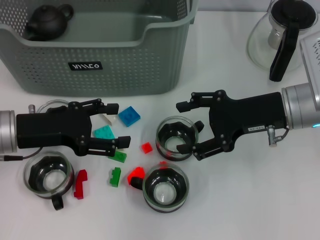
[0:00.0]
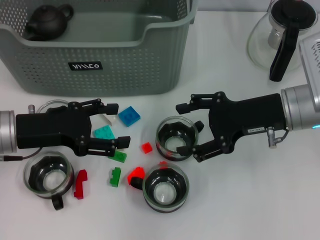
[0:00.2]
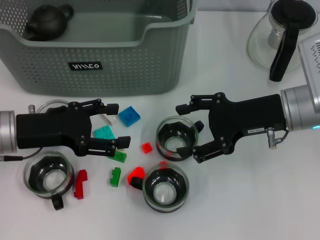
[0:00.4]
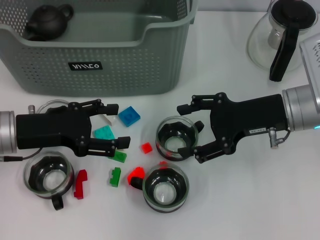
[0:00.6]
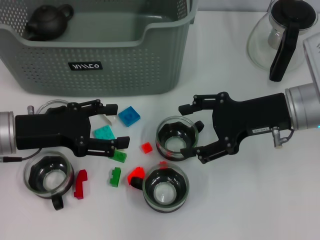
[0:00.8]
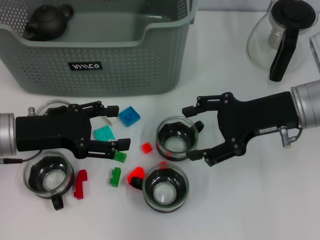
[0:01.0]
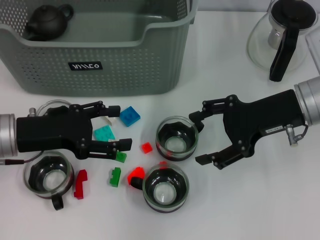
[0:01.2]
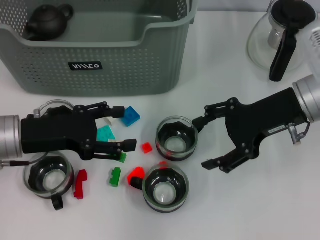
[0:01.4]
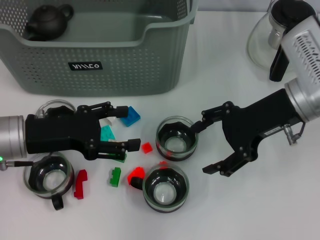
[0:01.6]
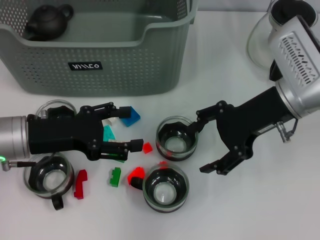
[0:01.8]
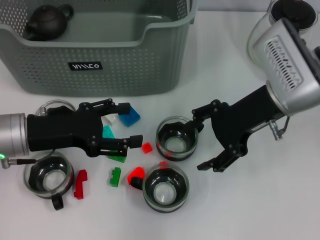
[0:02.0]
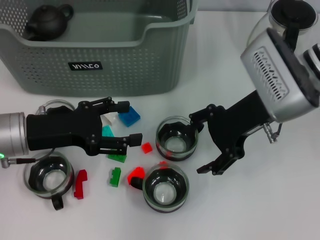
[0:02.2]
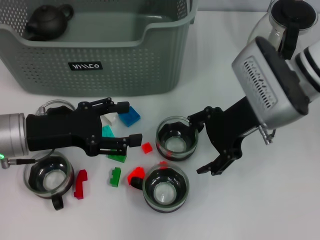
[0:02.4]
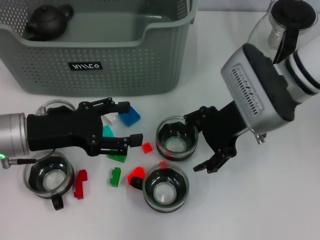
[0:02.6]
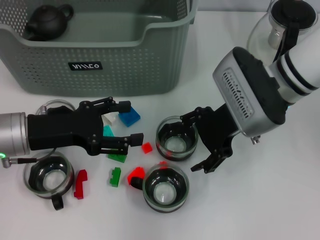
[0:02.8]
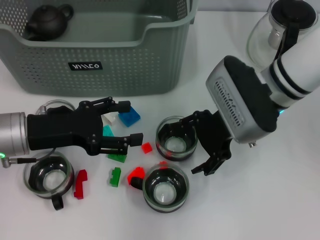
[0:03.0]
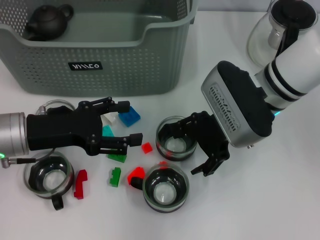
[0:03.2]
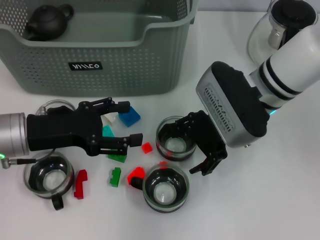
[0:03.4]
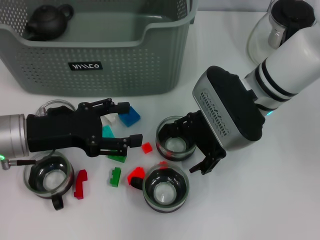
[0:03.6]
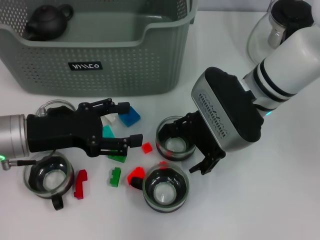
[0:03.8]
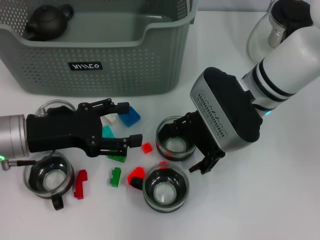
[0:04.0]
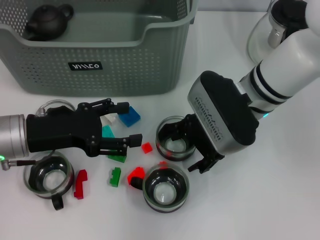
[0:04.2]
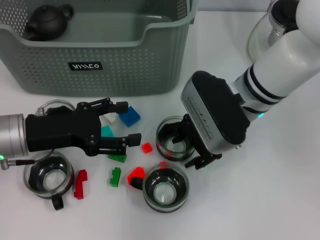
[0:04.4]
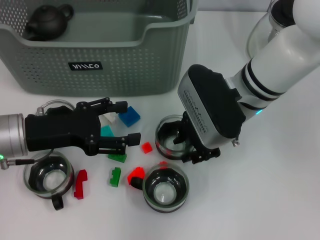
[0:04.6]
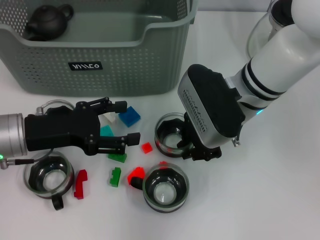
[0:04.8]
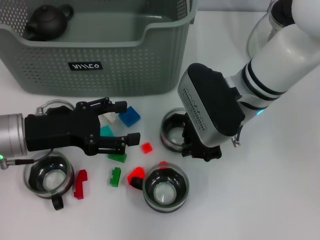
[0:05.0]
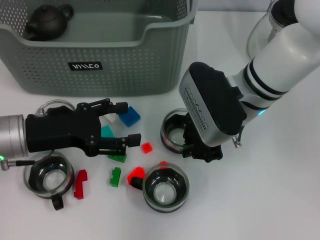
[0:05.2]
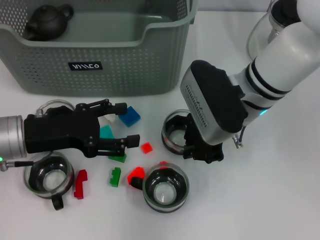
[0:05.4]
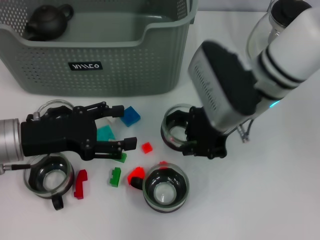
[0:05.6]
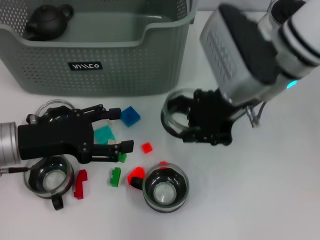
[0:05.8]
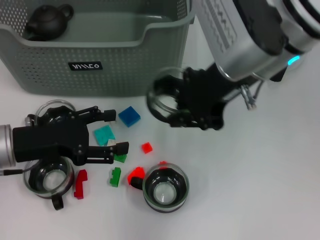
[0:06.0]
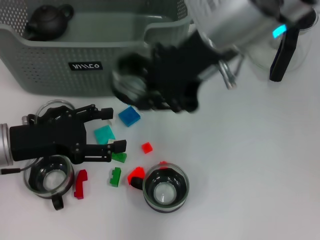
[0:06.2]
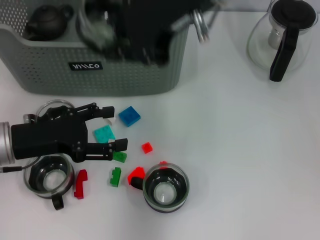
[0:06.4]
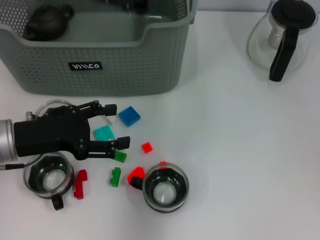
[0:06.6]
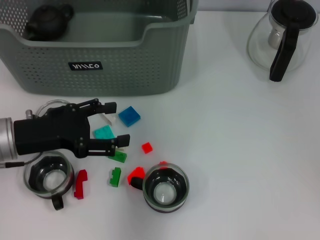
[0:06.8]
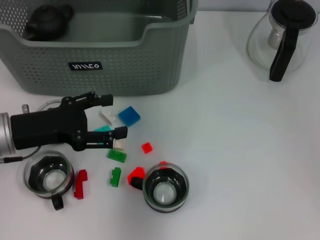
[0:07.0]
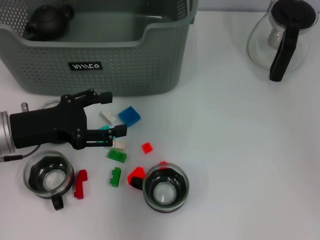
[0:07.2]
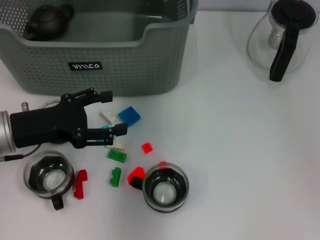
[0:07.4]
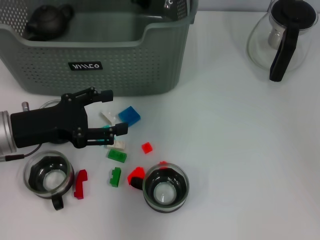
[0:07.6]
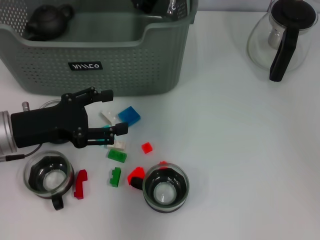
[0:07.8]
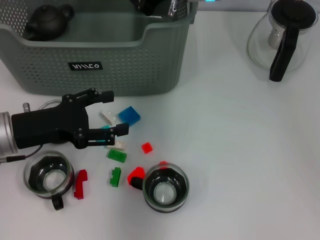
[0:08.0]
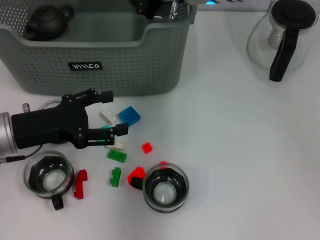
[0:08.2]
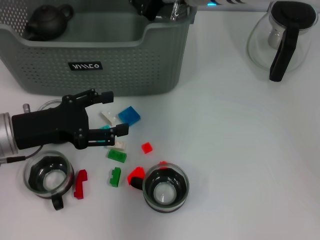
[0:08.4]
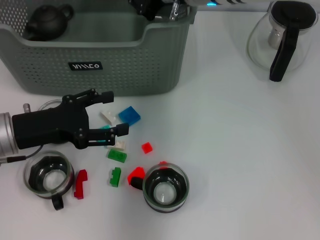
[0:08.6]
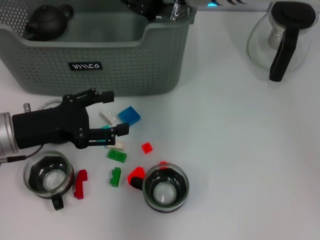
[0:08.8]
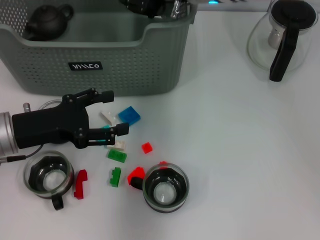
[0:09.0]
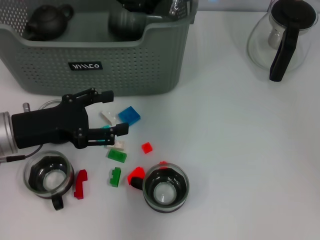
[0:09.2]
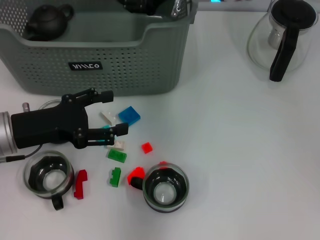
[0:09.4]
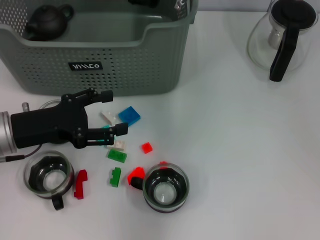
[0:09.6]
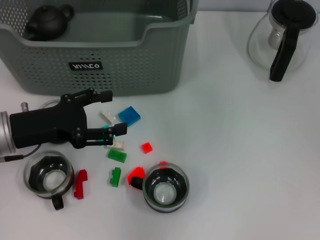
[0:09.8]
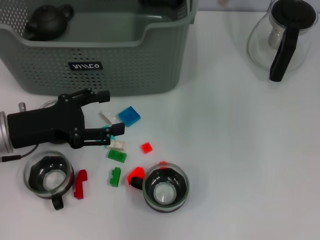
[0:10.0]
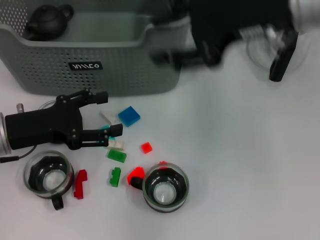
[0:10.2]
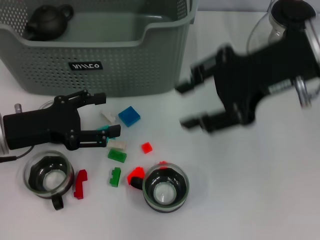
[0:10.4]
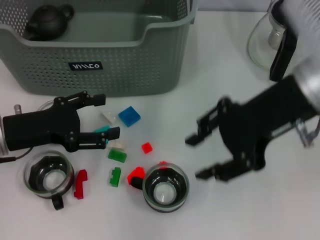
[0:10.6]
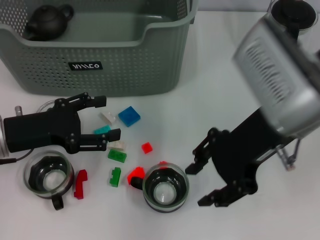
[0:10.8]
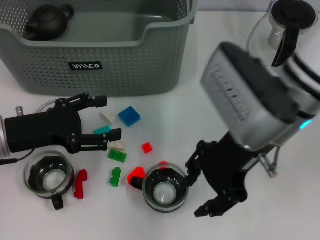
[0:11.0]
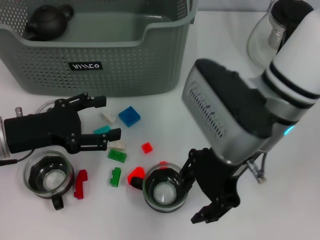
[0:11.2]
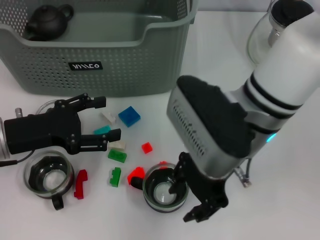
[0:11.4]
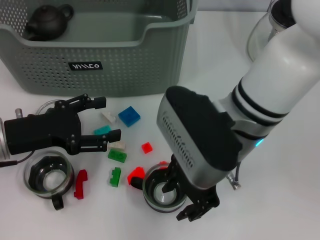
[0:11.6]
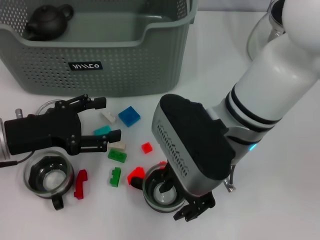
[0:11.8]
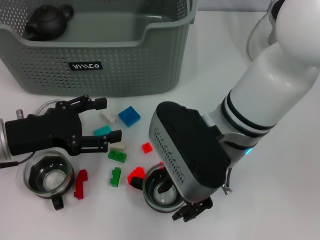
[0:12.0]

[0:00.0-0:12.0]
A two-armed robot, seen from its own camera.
Task of the whole recording: pick up the teacup on the table and place it into the storage bin, pick up the block on the table and place it into the storage bin.
Step, 0:00.0 to 0:05.0: Grasp the cup with right gripper.
Step, 0:05.4 to 0:09.8: Place the cup in the storage box with right gripper.
0:01.6 to 0:03.0: The right gripper is displaced to the left by roughly 5 cm.
0:03.0 to 0:04.4: The grippers make only small movements.
0:04.4 to 0:06.0: The right gripper heads upward, covering about 10 cm, and closes.
0:06.0 to 0:07.6: The right gripper is displaced forward and to the left by some 15 cm.
0:07.6 to 0:09.0: There are only small adjustments of the grippers.
0:09.0 to 0:10.4: The right gripper heads backward and to the right, covering roughly 20 cm, and opens its fingers.
0:10.4 to 0:12.0: The right gripper shifts roughly 15 cm to the left and downward.

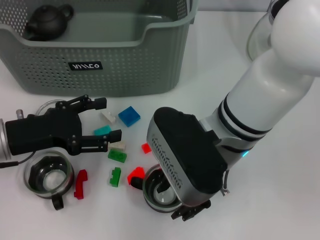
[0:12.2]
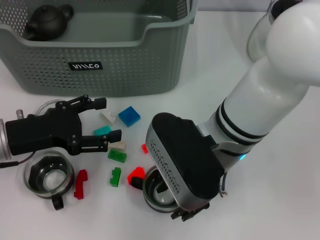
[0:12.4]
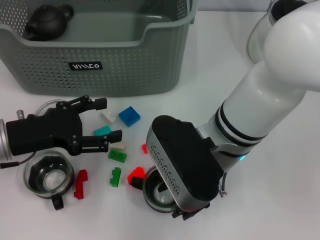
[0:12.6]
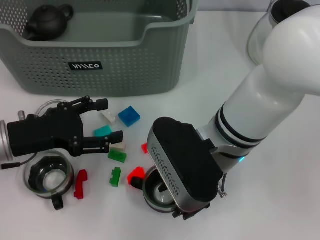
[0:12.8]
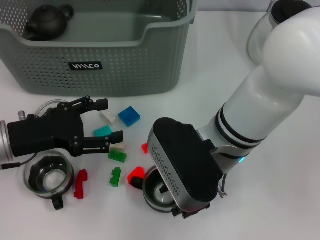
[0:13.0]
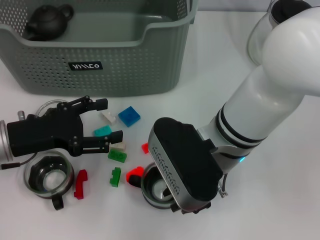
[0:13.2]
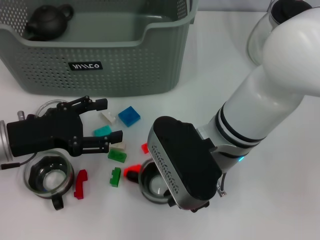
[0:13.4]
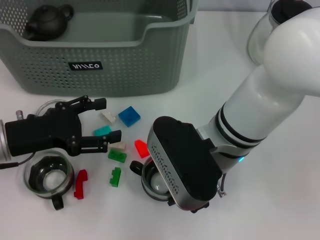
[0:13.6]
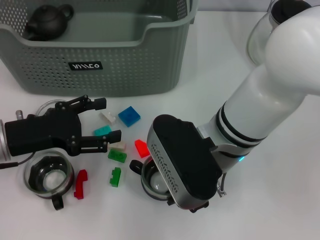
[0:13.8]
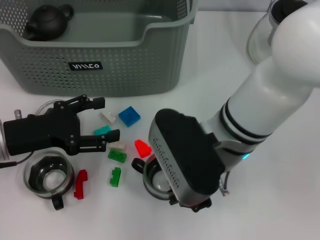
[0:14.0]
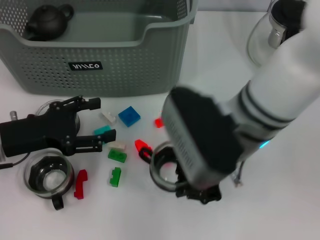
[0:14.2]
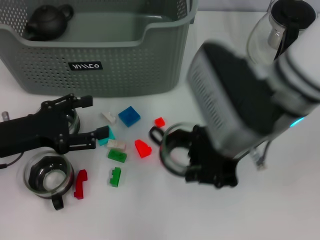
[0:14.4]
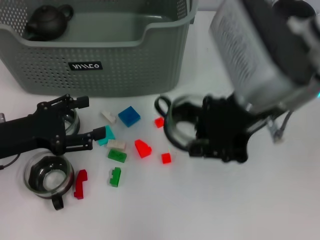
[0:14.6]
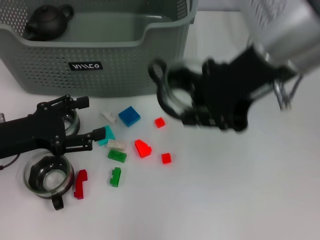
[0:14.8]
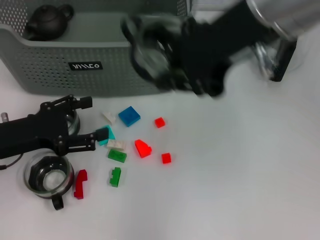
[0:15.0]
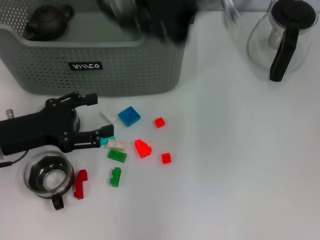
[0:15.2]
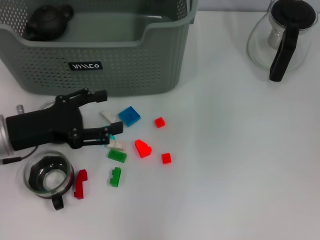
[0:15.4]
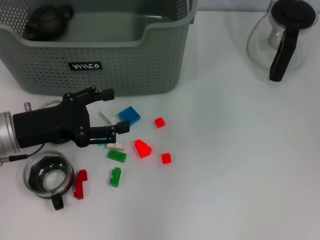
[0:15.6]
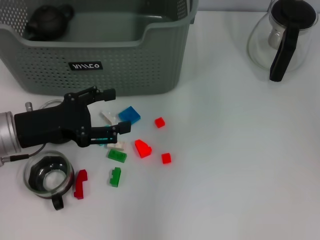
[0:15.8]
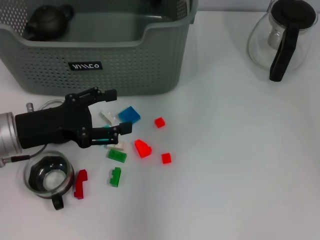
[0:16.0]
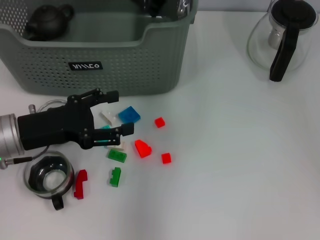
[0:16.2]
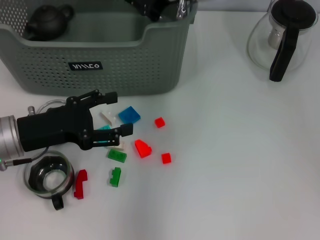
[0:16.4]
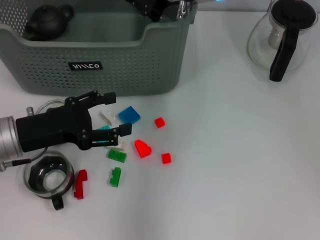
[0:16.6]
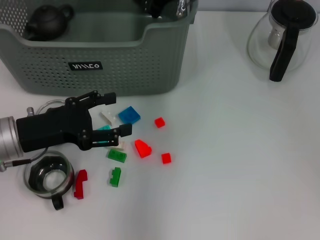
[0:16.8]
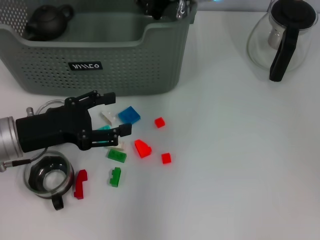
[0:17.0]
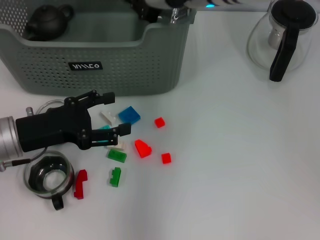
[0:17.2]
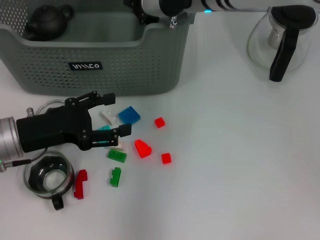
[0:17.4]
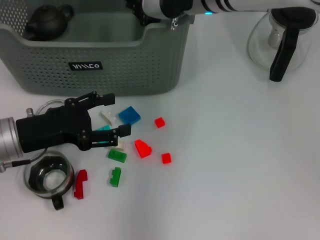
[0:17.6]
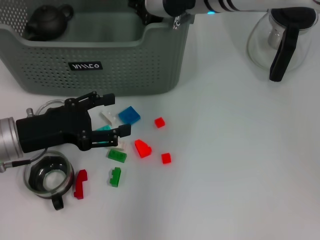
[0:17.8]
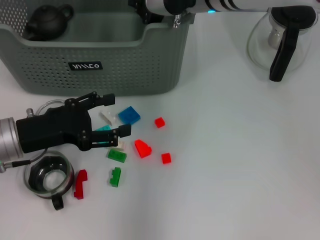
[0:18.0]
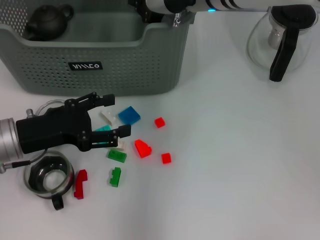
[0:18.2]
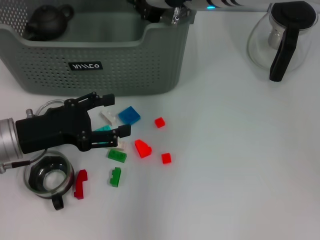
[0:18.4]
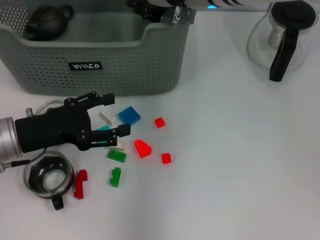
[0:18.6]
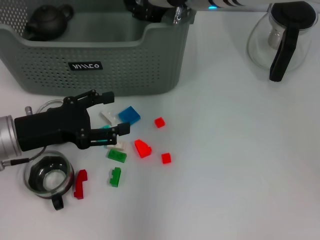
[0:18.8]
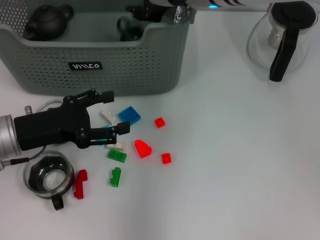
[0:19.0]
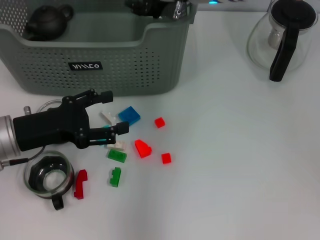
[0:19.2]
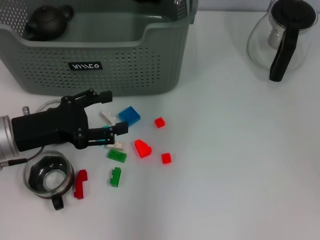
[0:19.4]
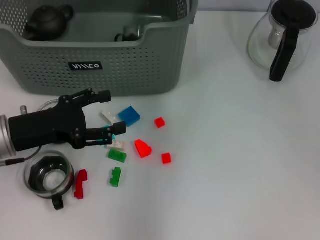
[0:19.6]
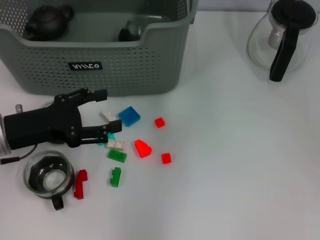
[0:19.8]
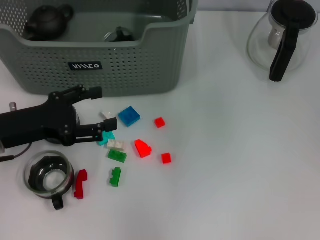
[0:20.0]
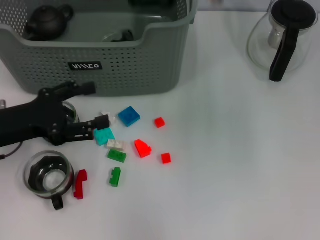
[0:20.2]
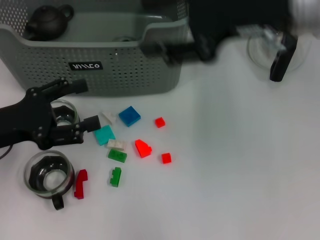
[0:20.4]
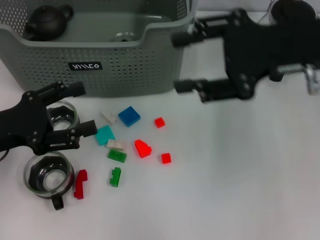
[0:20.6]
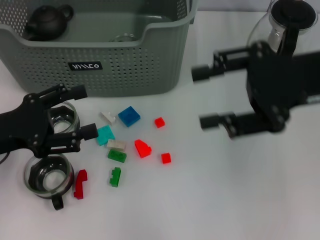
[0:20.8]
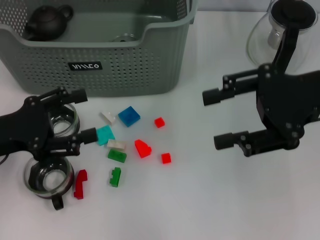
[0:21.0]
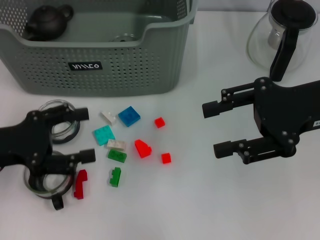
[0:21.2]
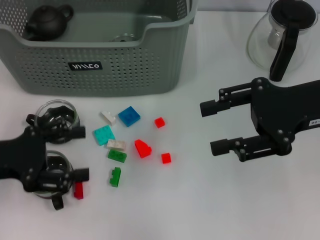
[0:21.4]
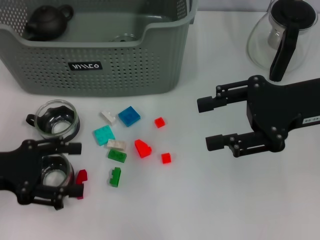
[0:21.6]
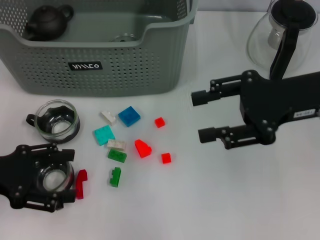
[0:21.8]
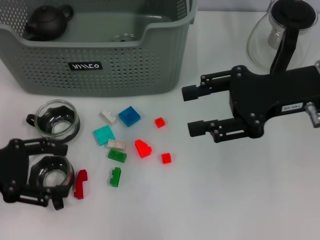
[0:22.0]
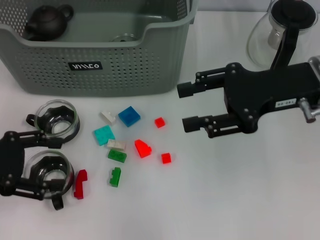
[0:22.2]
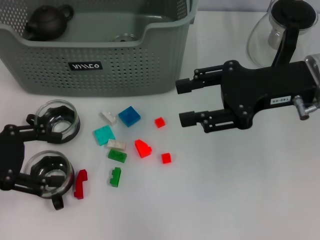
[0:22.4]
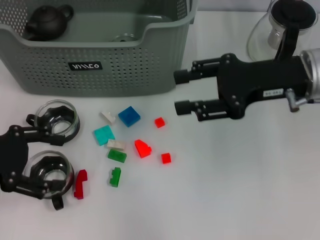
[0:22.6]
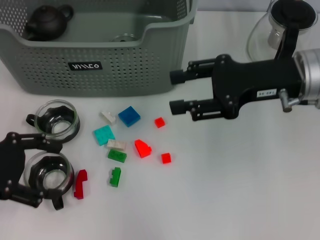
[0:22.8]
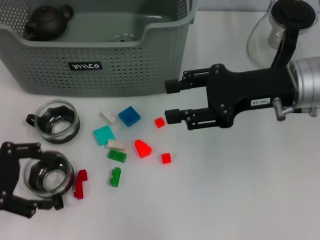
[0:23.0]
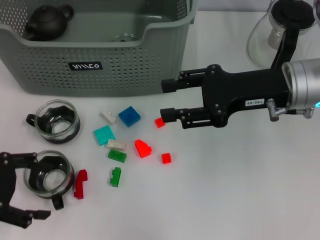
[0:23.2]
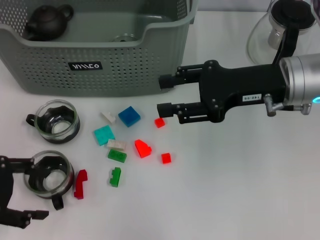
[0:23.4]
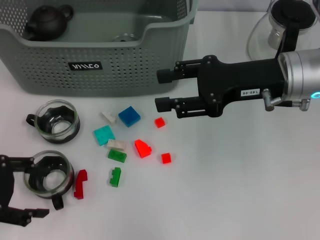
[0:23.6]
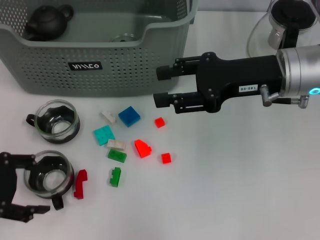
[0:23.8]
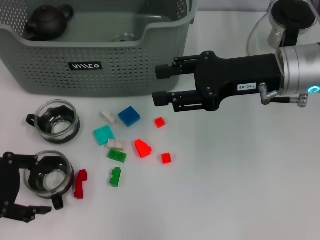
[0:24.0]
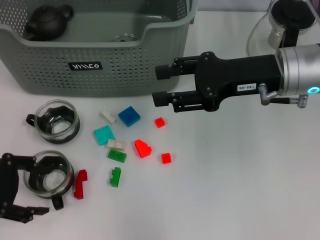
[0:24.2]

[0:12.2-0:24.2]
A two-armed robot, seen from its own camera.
Task of the whole recording: pick up the teacup on the table and place it into the storage bin, pick up the block on the table and place it into the storage bin.
Step, 0:13.8 to 0:19.2: Place the cup in the storage box with right gripper.
0:12.2 to 0:13.8: The right gripper closes its fingers.
0:13.8 to 0:15.2: The right gripper moves upward, some 20 cm.
0:15.2 to 0:16.6: The right gripper is displaced downward and forward by approximately 15 cm.
0:16.6 to 0:18.2: The grippers make only small movements.
0:18.2 to 0:19.8: The right gripper is displaced upward by approximately 5 cm, and opens its fingers.
0:19.8 to 0:21.2: The right gripper moves to the right, backward and downward, roughly 20 cm.
0:22.6 to 0:24.2: There are only small adjustments of the grippers.
